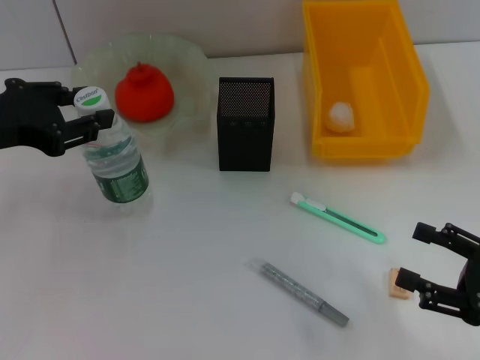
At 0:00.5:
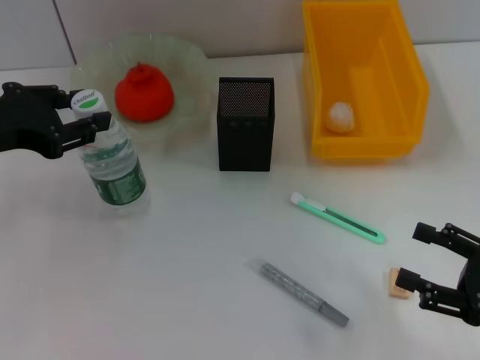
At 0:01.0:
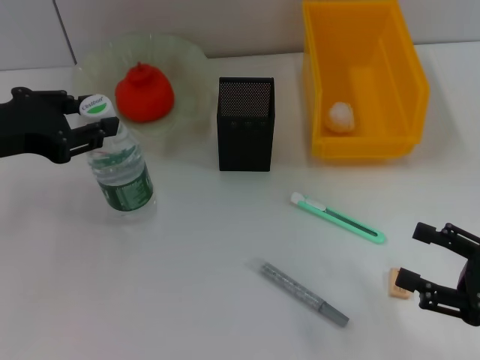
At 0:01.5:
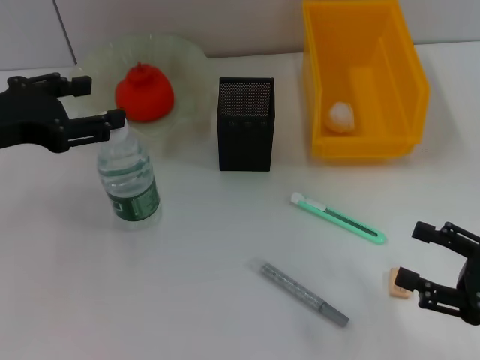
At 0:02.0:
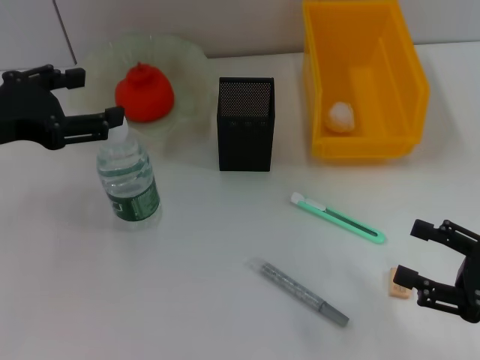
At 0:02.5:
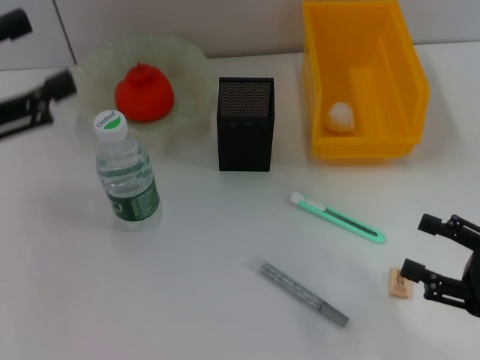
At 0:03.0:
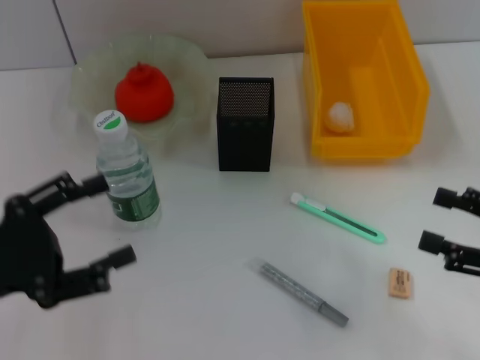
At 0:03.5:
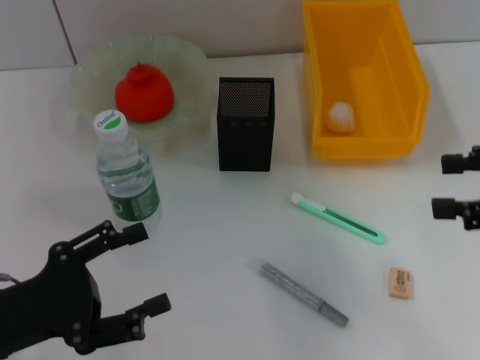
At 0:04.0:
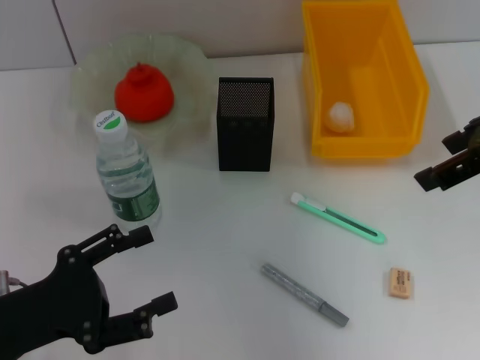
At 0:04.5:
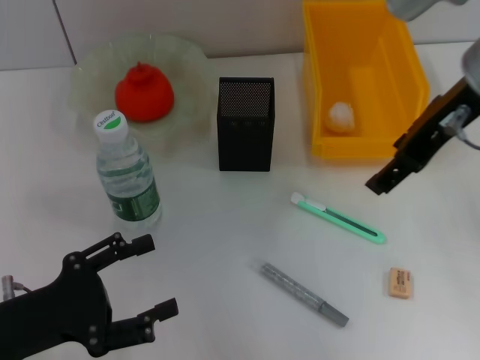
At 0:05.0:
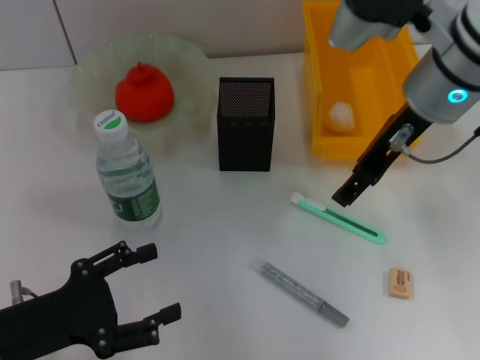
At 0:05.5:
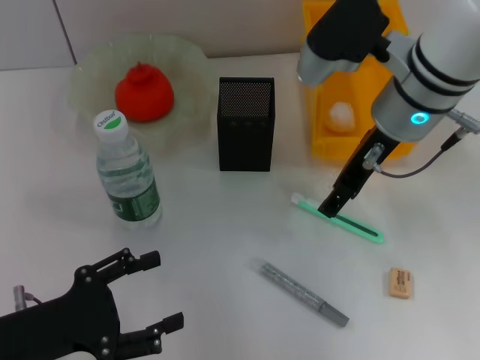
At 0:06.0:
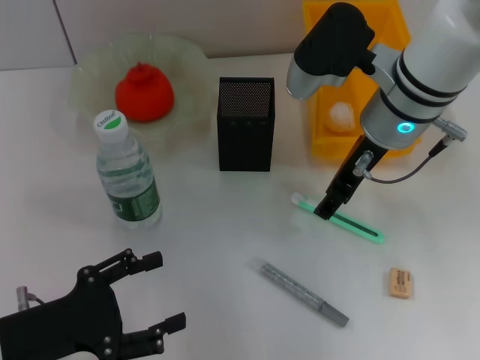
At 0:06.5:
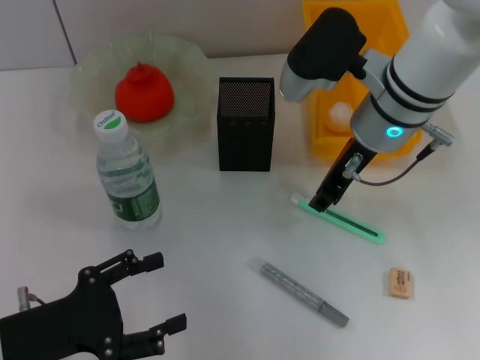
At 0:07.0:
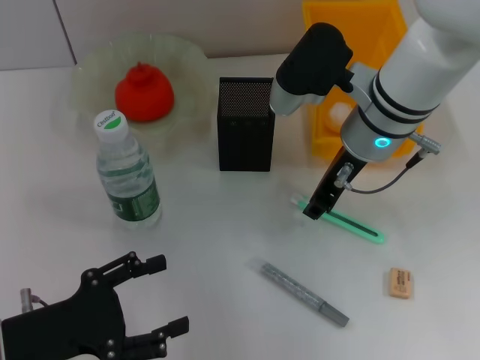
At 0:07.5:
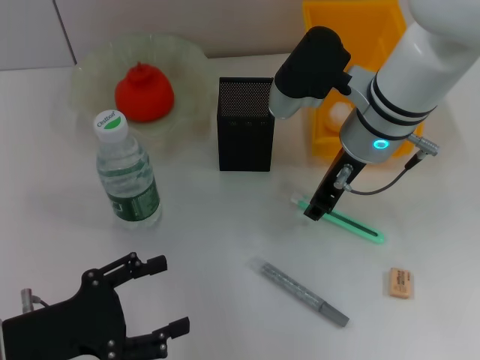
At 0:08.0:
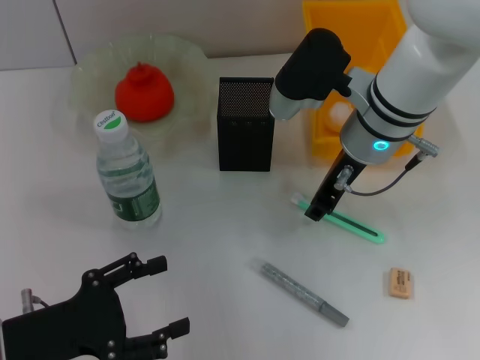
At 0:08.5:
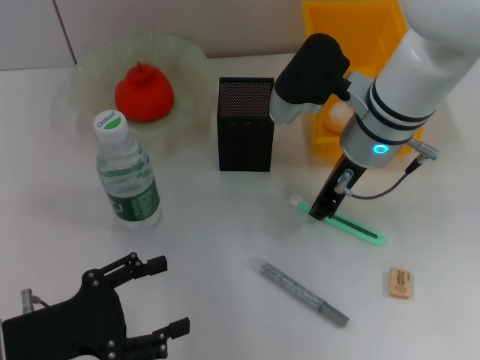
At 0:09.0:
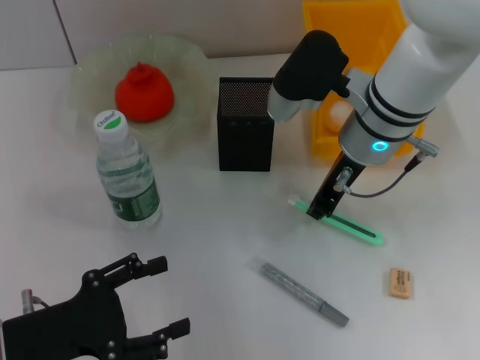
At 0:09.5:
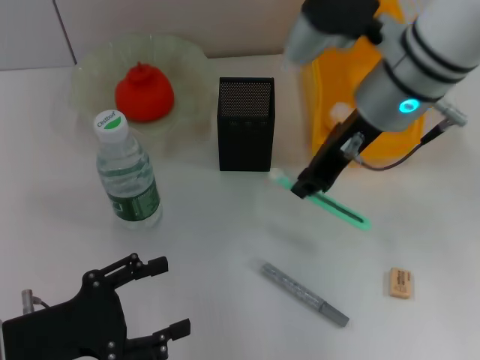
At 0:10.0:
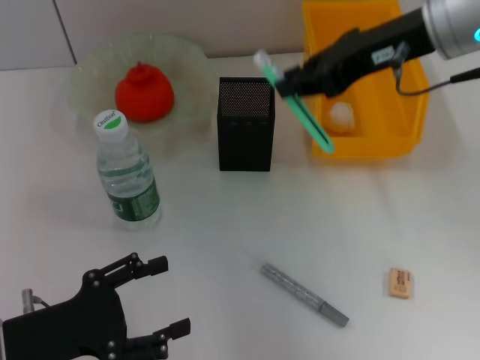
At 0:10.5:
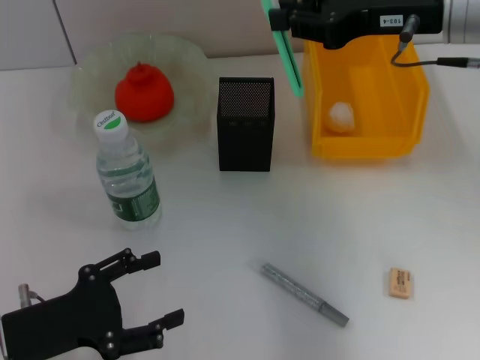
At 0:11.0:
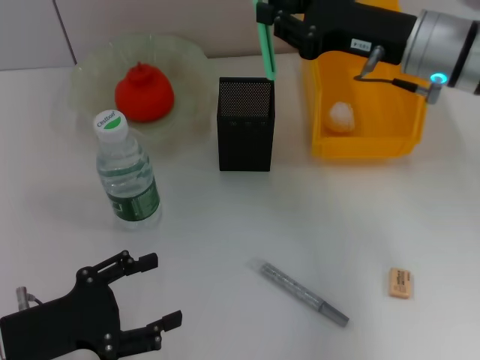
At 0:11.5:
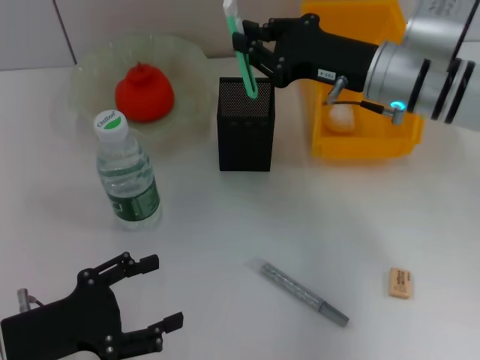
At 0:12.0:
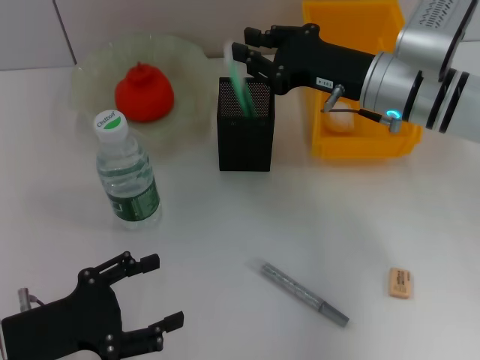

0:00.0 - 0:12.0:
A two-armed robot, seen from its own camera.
Step, 0:01.5 - 0:08.0: Grab the blue utility knife with the right hand.
0:00.0 - 0:02.0: The left gripper opens up.
0:02.0 - 0:04.0: The right gripper is displaced upward and forward by roughly 25 cm. The left gripper travels downward and backward by about 15 cm.
0:04.0 - 0:06.0: The right gripper shifts about 20 cm to the left, downward and forward.
0:06.0 - 0:08.0: The right gripper closes its fingers.
0:08.0 - 0:10.0: The right gripper travels upward and to the right by about 15 cm.
0:10.0 - 0:12.0: The right gripper moves downward, roughly 15 cm.

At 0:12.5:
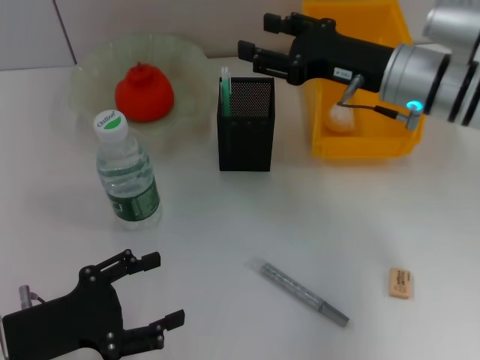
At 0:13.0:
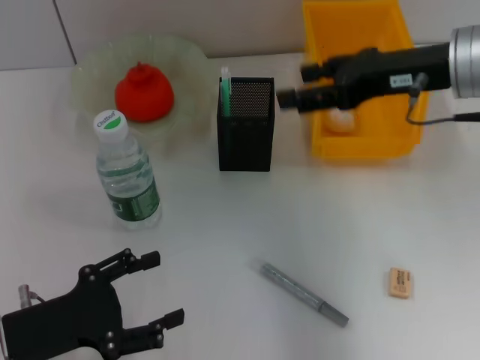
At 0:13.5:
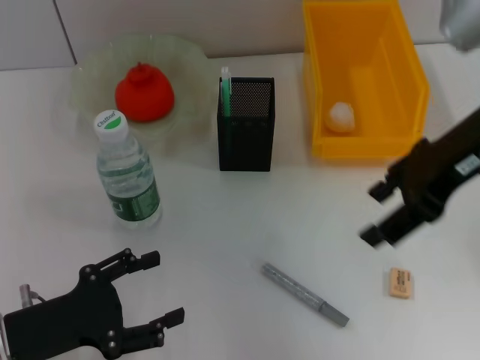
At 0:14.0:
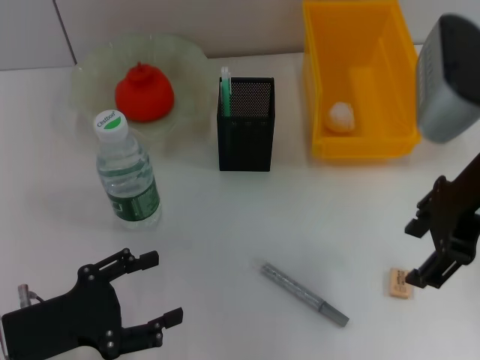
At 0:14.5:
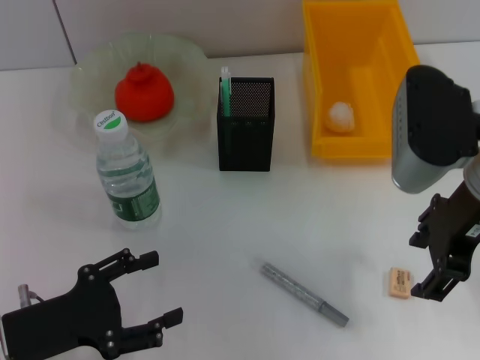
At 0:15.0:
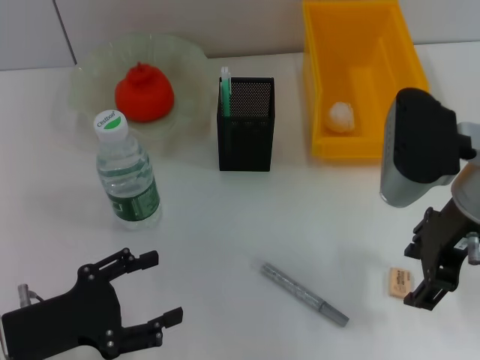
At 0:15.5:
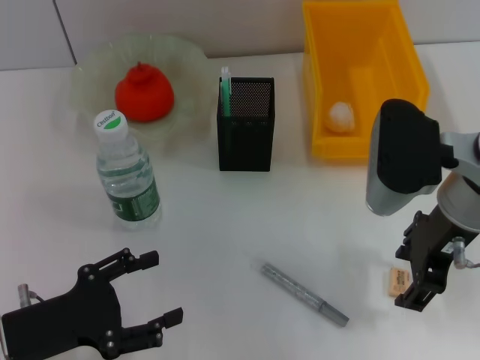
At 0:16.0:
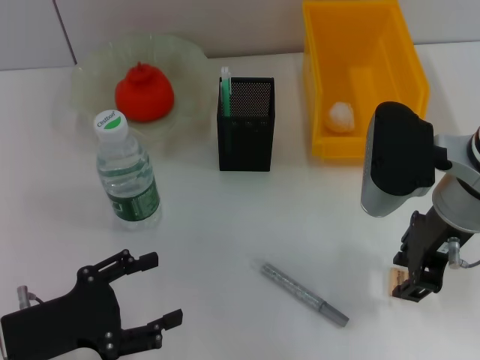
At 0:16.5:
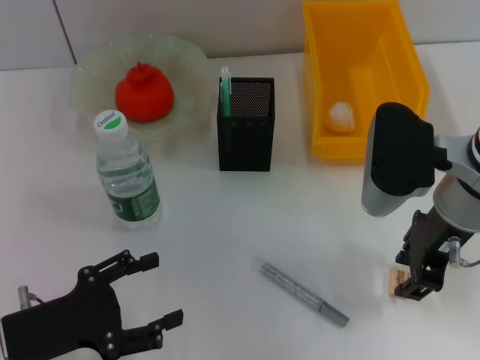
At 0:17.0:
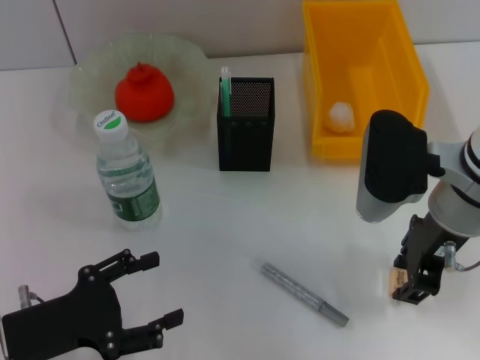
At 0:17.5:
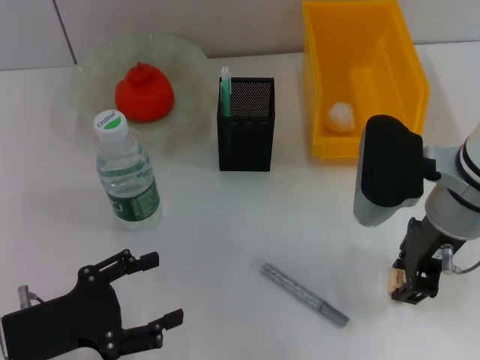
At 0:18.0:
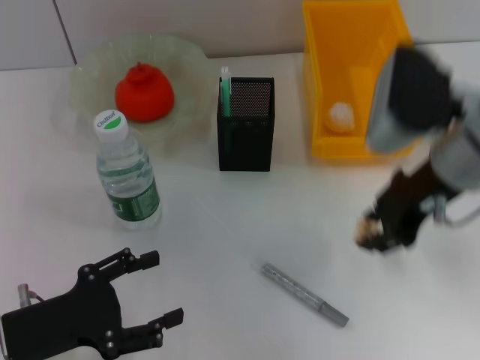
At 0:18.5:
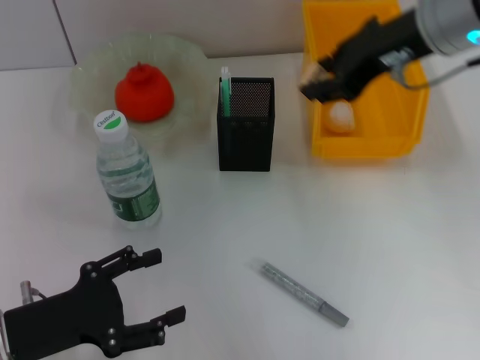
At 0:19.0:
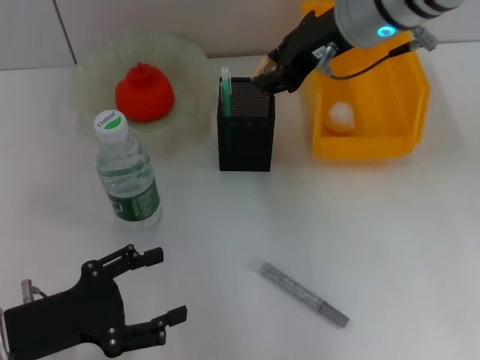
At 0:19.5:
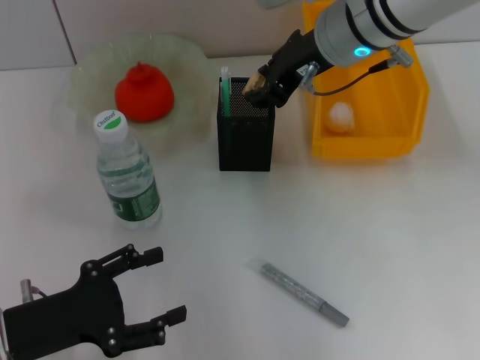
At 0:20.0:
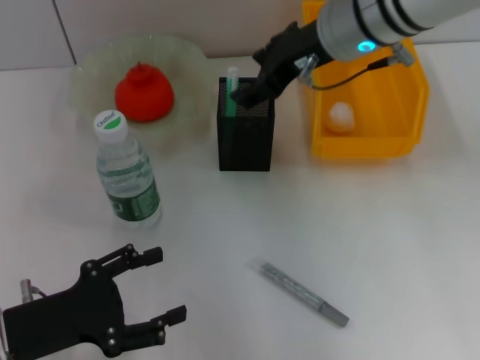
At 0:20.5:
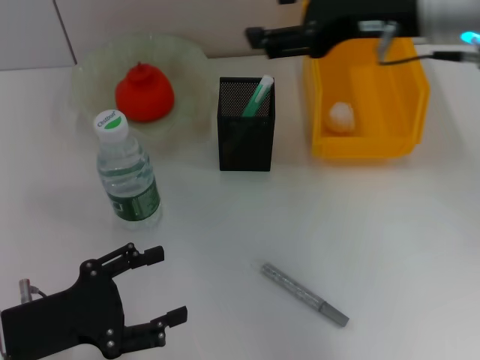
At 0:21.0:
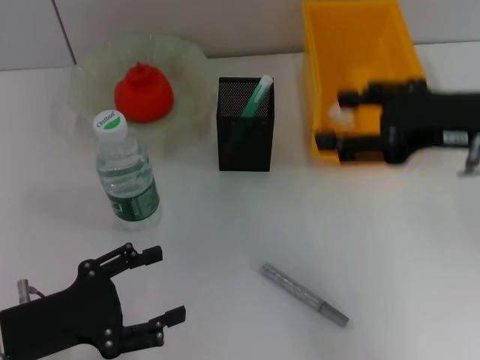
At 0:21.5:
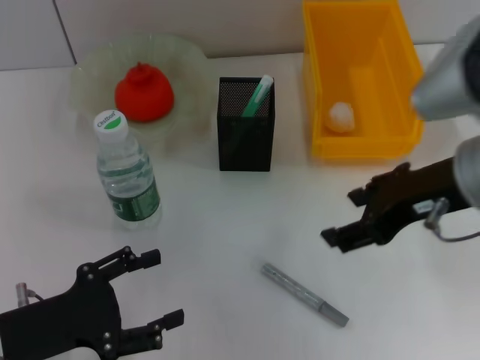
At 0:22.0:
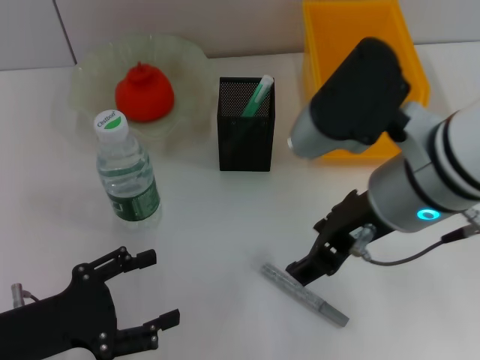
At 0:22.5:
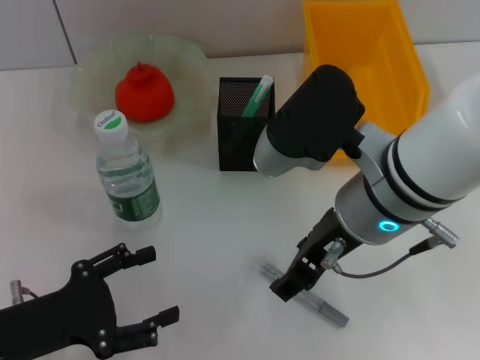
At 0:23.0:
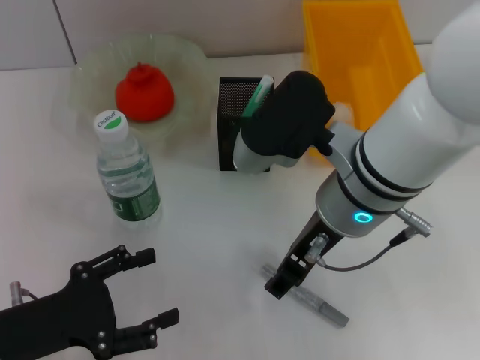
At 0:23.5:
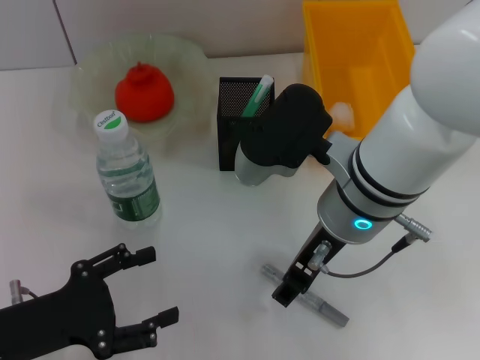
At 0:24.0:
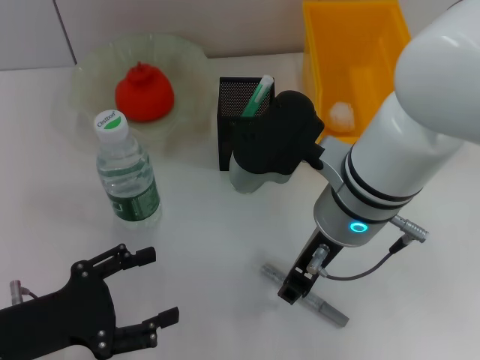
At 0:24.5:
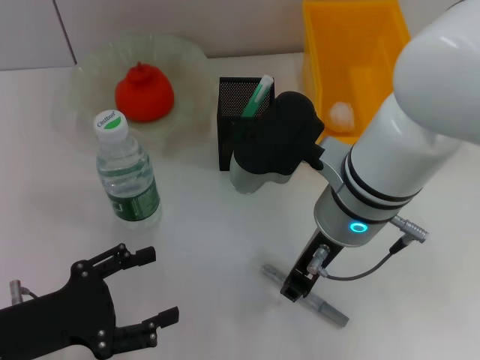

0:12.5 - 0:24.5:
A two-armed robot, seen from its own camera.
Step, 0:12.5 - 0:17.5: Grab the eraser with the right hand.
Step, 0:18.0 - 0:19.5: Put the eraser into the pen holder with the right hand.
0:12.5 - 0:14.5: The right gripper goes some 10 cm backward and upward.
0:14.5 - 0:16.5: The right gripper closes.
0:16.5 - 0:18.5: The right gripper shifts approximately 15 cm upward and forward.
0:18.5 - 0:20.5: The right gripper opens.
0:20.5 - 0:22.5: The right gripper moves to the left, downward and backward, roughly 15 cm.
0:22.5 - 0:24.5: The grippers stay close to where they were, moving slightly.

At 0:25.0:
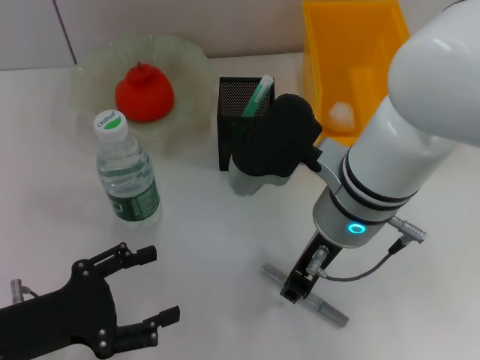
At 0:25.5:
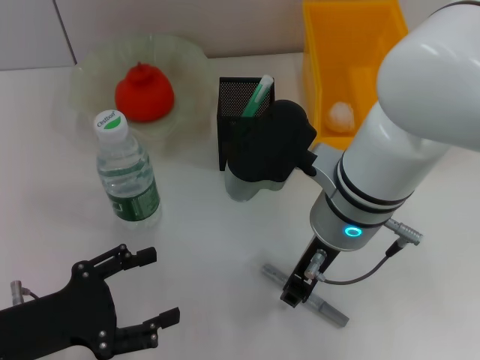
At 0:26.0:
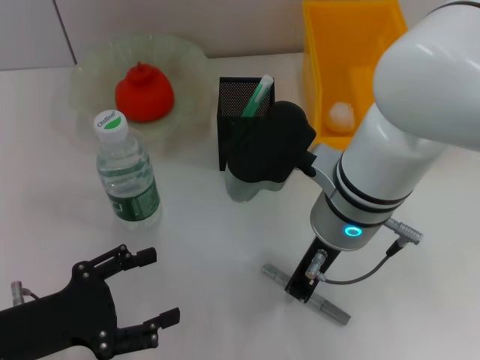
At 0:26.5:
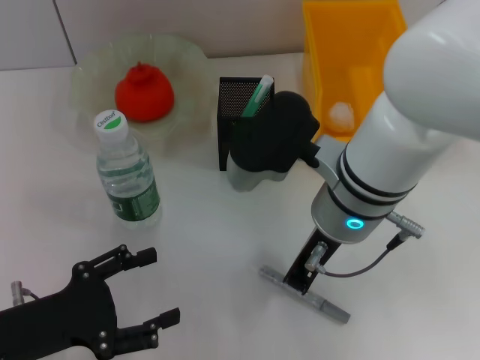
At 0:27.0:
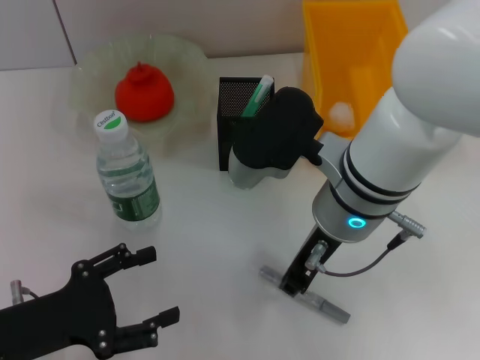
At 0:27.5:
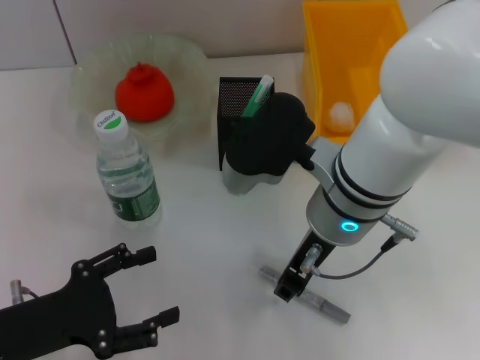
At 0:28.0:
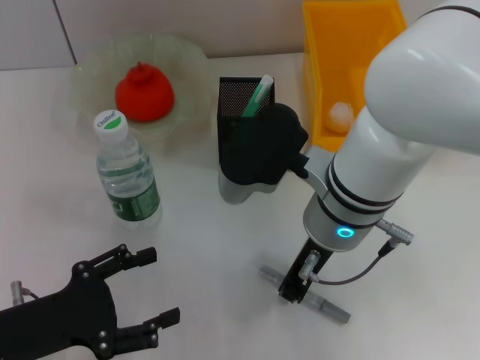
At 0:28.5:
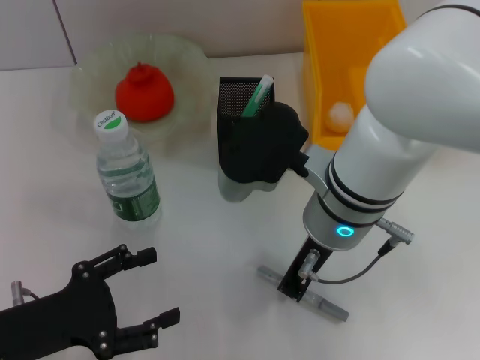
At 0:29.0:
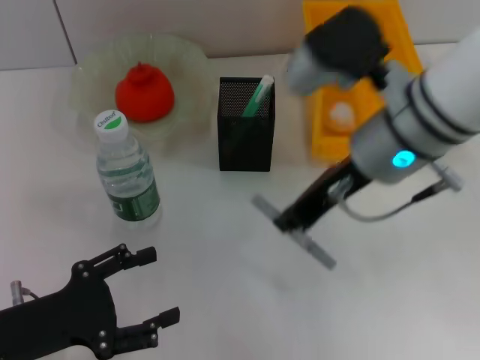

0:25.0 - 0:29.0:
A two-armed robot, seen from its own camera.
Step, 0:25.0 - 0:28.0: Grab the gray glue with the right hand.
0:25.0 - 0:27.0: The right gripper closes.
0:27.0 - 0:29.0: The right gripper shifts by roughly 5 cm, and opens, then closes again.
